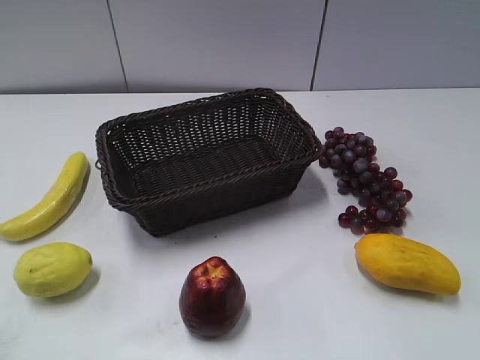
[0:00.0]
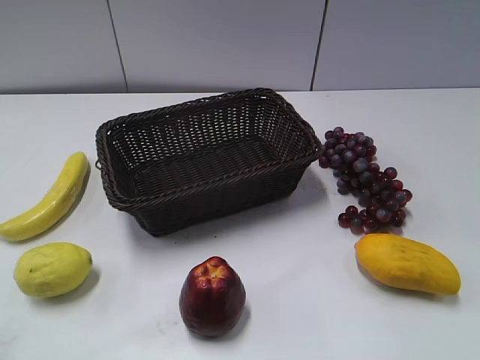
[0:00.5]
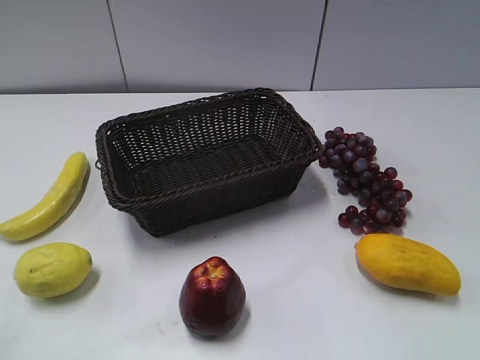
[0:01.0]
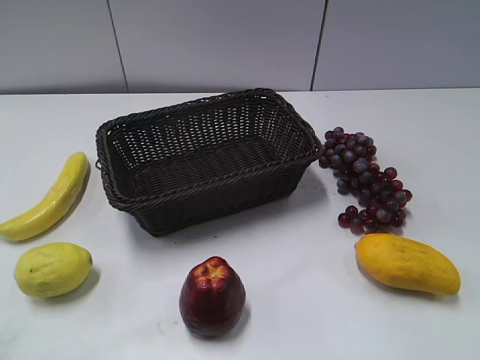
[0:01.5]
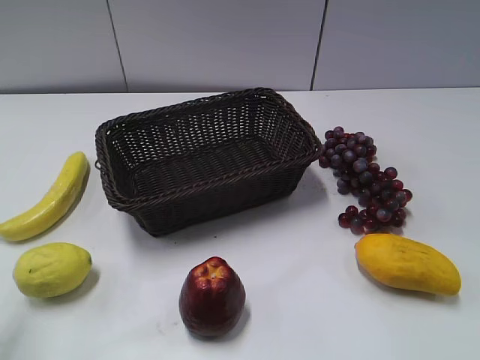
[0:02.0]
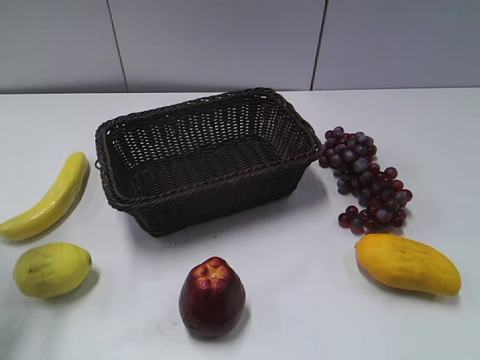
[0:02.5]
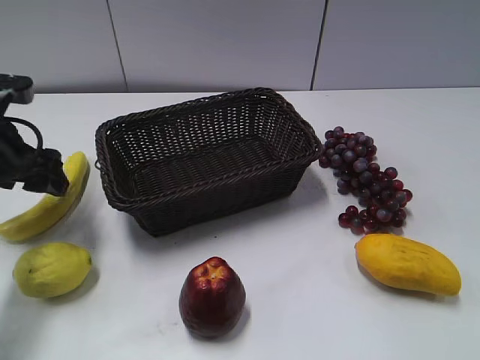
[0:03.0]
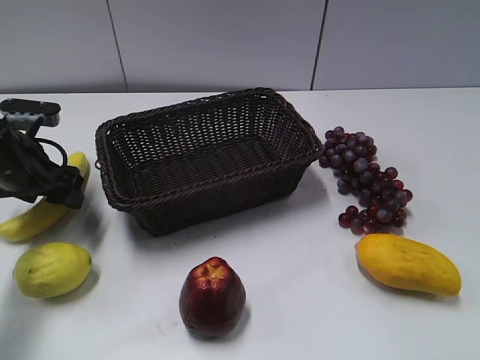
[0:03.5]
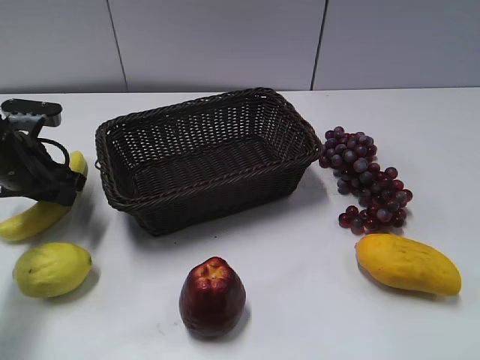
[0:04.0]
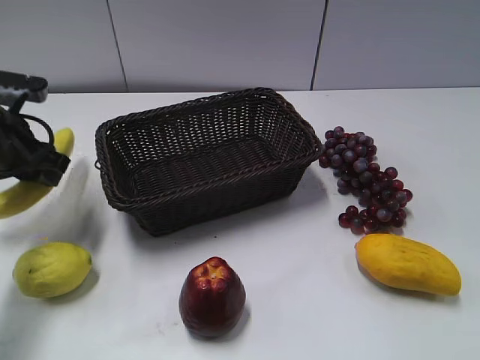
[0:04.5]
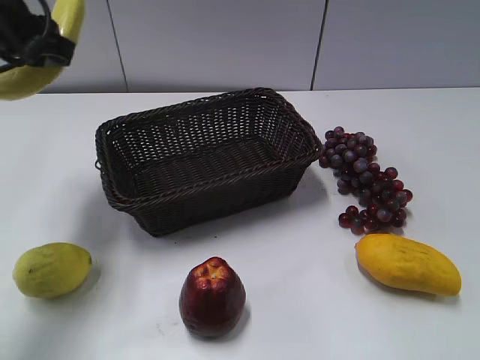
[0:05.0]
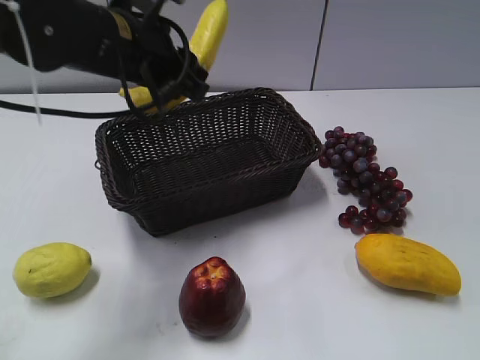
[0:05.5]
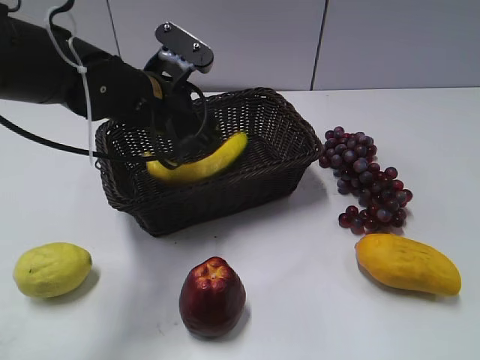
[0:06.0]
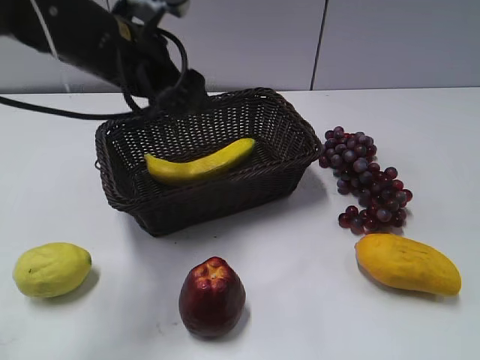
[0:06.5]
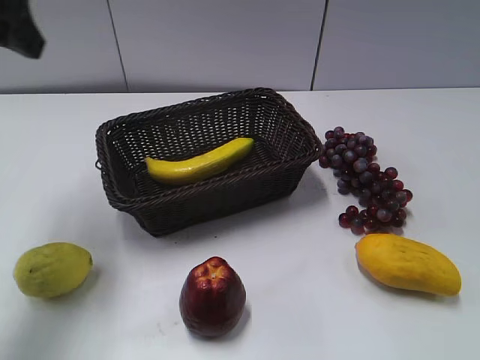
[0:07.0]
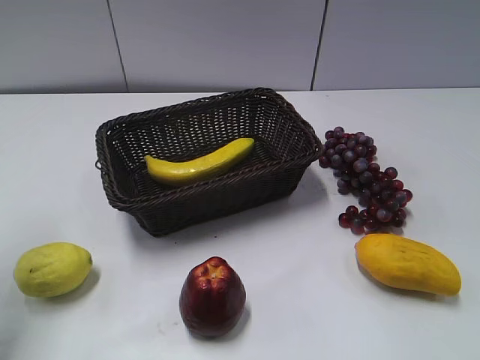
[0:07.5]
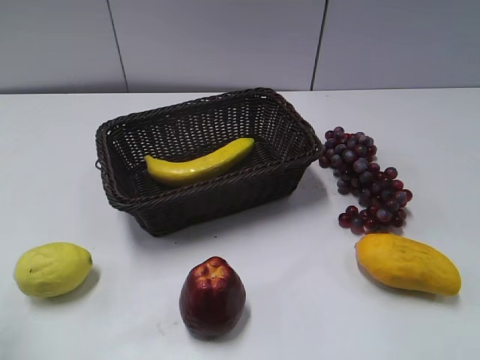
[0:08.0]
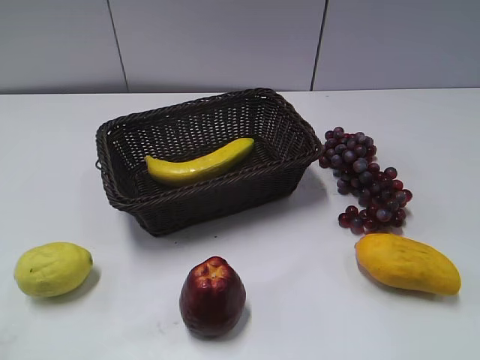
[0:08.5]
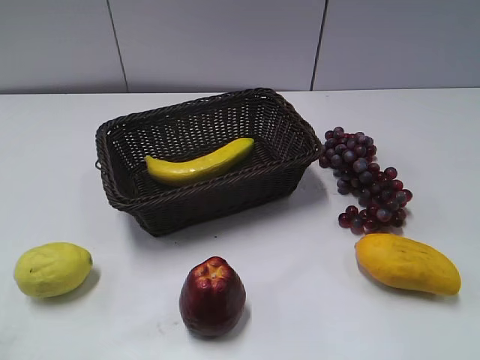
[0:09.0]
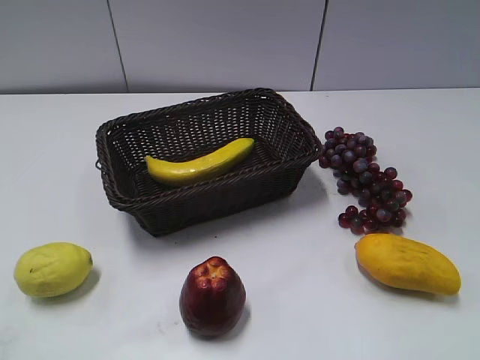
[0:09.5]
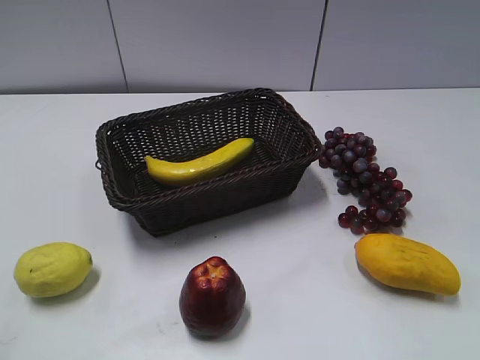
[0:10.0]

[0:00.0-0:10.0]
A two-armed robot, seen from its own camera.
Step, 0:02.5 to 0:04.0: Grasp the banana with left gripper.
Step, 0:04.5 to 0:06.0: Place the banana in the basket with left gripper.
0:02.0 to 0:04.0: The left gripper is displaced forward and downward by approximately 25 cm, and closes its fingers.
0:04.0 to 0:06.0: The left gripper goes roughly 15 cm to the right, and opens.
0:06.0 to 0:08.0: The left gripper heads backward, to the left and upward, covering approximately 35 cm.
